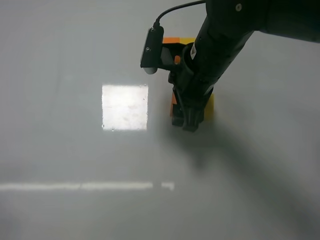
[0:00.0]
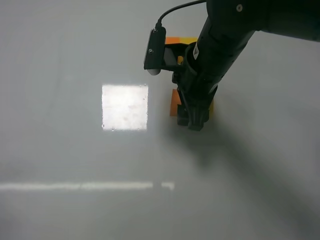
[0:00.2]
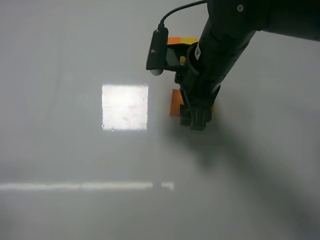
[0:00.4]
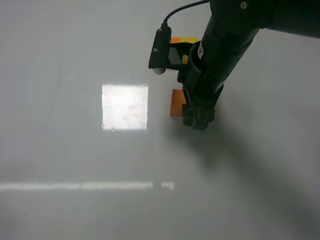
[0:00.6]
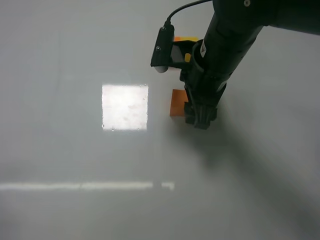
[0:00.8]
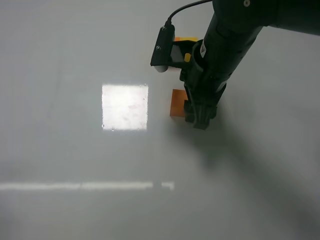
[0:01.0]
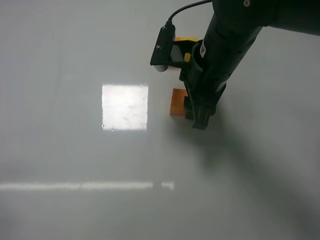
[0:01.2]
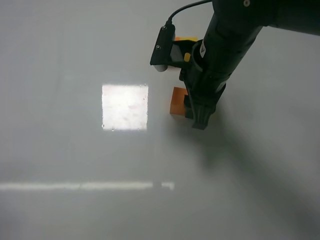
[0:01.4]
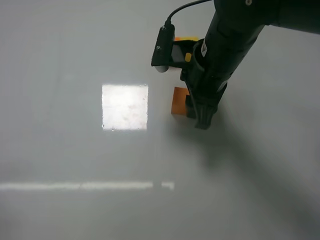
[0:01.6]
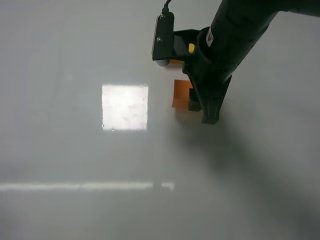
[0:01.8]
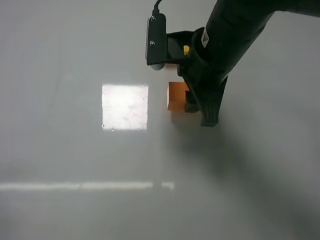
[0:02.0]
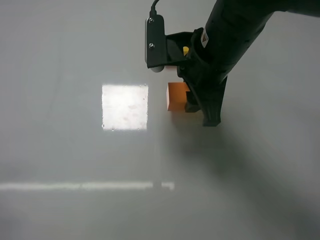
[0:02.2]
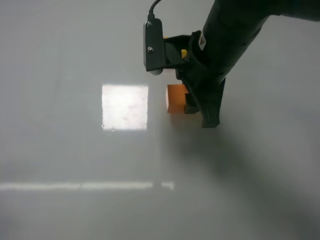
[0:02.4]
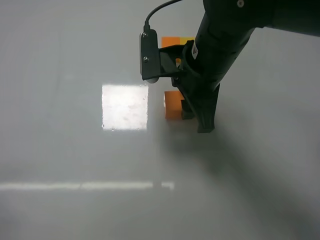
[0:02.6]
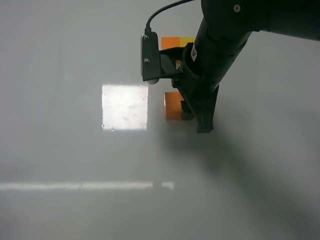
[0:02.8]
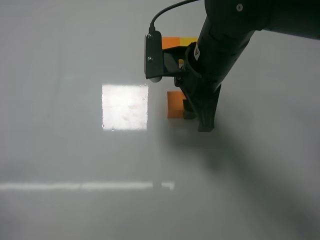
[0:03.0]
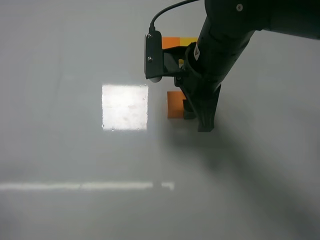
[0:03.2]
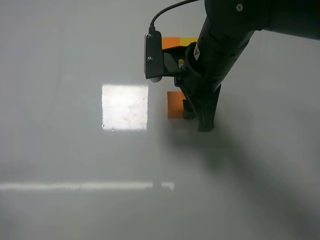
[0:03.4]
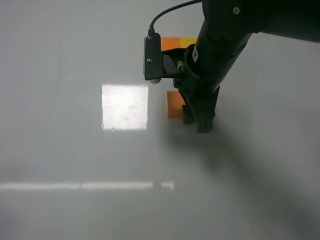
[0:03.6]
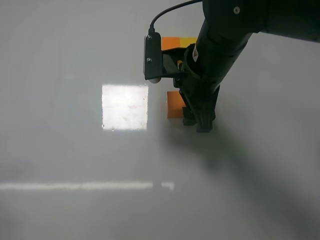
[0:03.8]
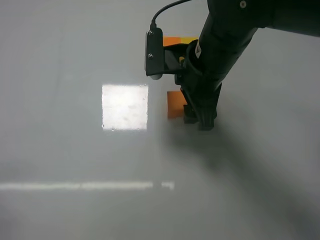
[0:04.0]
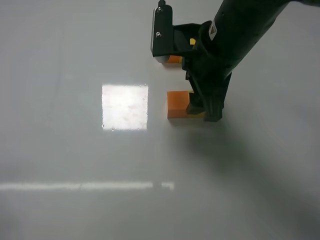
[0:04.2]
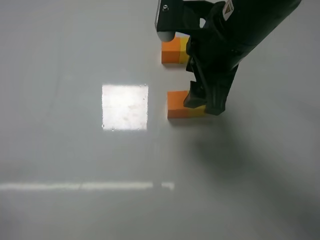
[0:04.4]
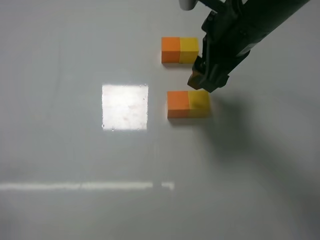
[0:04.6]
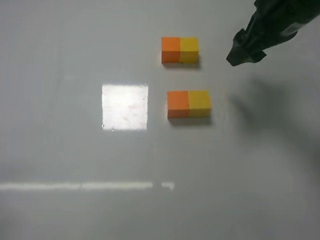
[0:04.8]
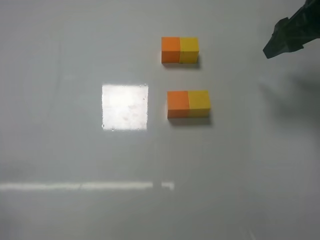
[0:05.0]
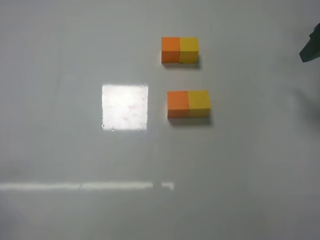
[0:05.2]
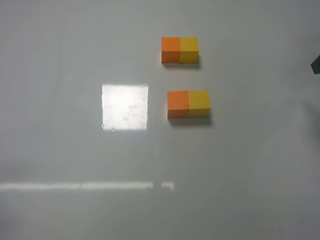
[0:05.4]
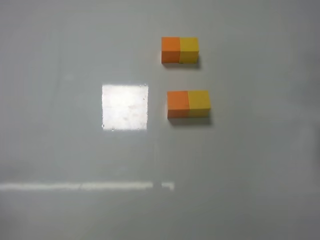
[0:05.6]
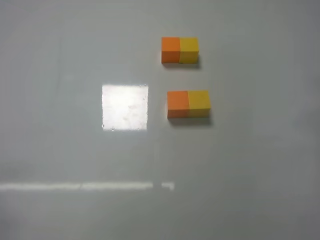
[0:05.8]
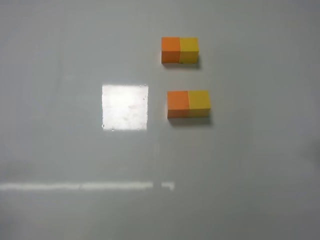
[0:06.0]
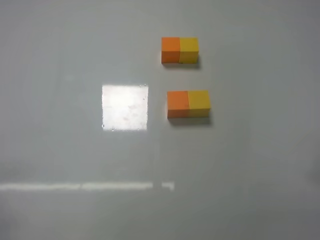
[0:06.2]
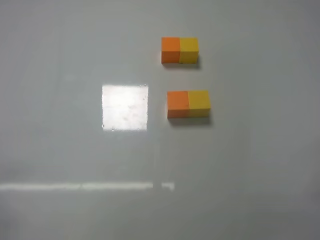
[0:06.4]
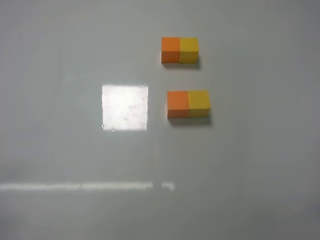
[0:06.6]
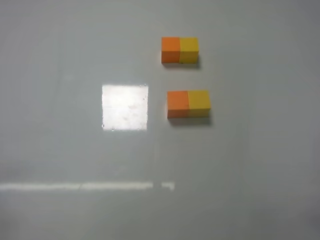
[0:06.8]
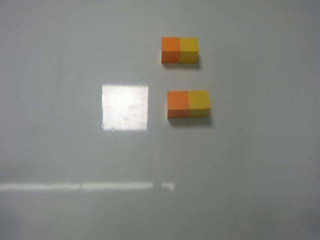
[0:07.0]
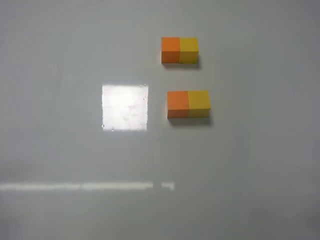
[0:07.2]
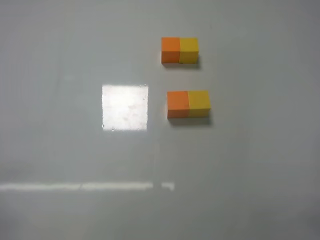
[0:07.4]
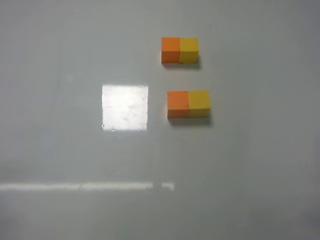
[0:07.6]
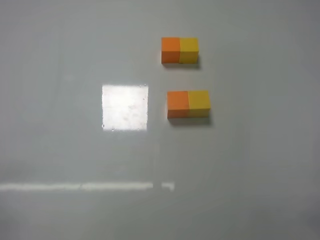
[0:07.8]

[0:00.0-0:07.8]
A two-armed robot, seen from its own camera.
Task of the whole recording: According to the building block template in front, assemble the scattered blocks together.
Step, 0:00.4 to 0:04.0: Put the yellow cube and orange cube in the center of the table with the right gripper.
0:00.0 to 0:01.6: The right gripper closes up.
0:01.6 to 0:03.2: The grippers move only a little.
0:03.2 to 0:04.6: The right gripper moves upward and to the right, about 10 cm, and opens up.
0:04.6 to 0:06.2: The right gripper shifts roughly 30 cm backward, to the right and downward.

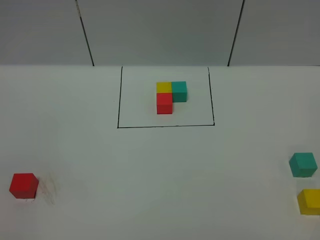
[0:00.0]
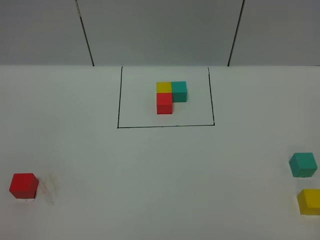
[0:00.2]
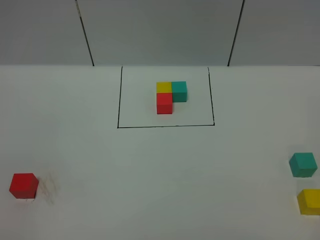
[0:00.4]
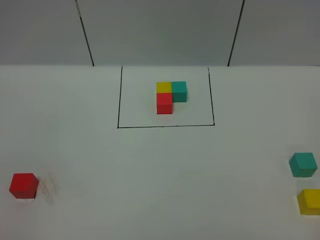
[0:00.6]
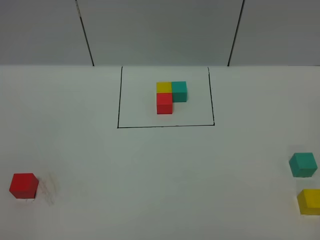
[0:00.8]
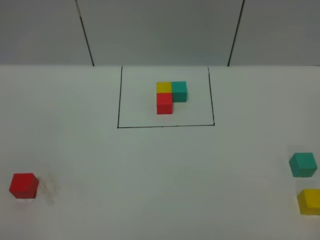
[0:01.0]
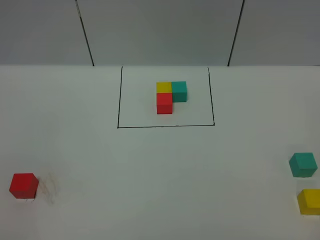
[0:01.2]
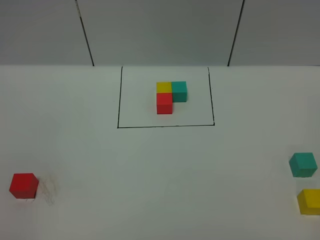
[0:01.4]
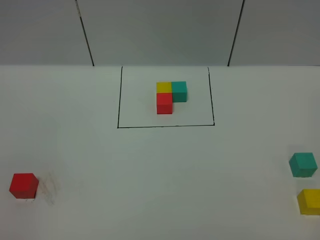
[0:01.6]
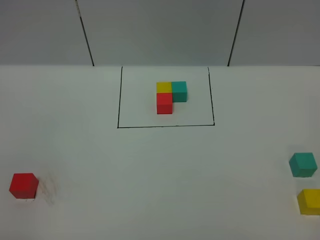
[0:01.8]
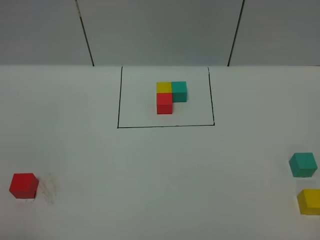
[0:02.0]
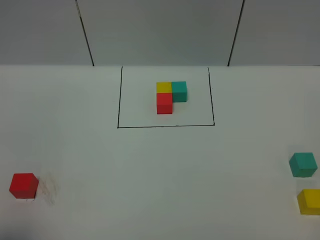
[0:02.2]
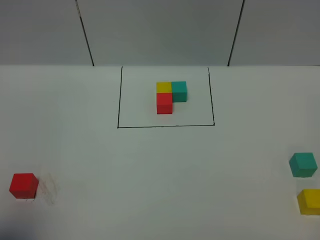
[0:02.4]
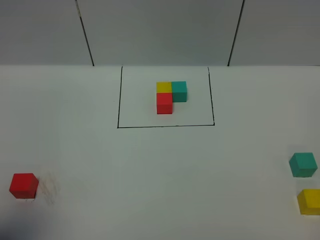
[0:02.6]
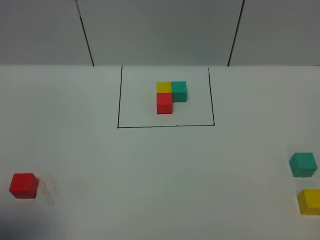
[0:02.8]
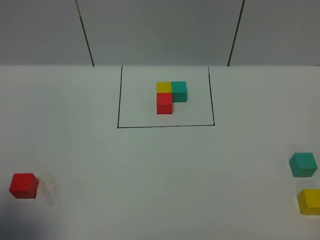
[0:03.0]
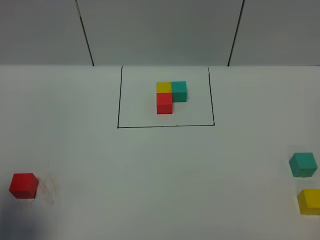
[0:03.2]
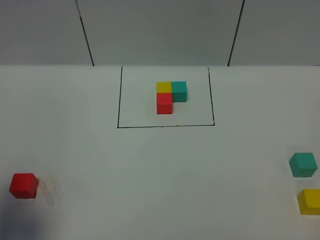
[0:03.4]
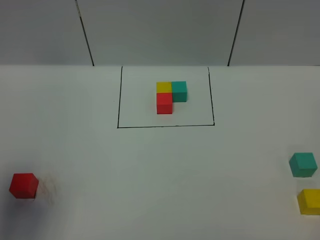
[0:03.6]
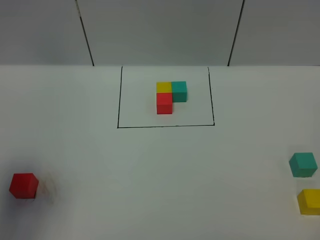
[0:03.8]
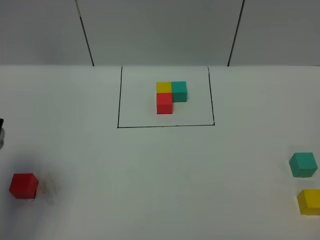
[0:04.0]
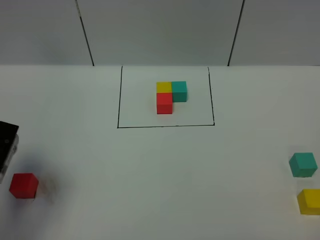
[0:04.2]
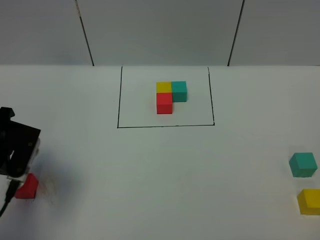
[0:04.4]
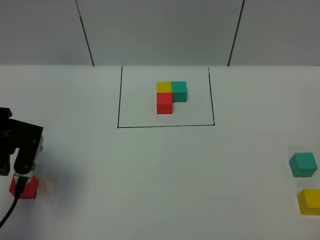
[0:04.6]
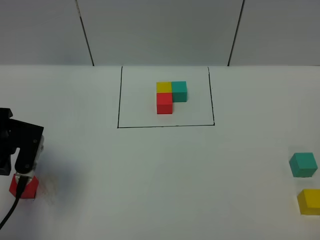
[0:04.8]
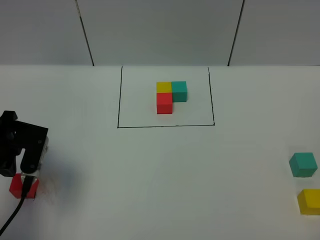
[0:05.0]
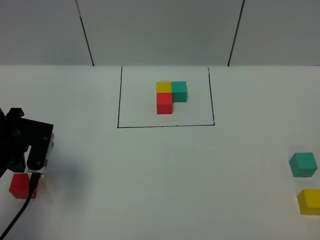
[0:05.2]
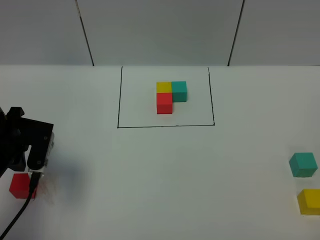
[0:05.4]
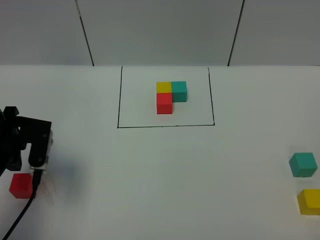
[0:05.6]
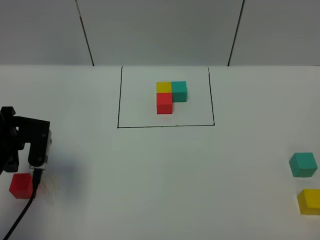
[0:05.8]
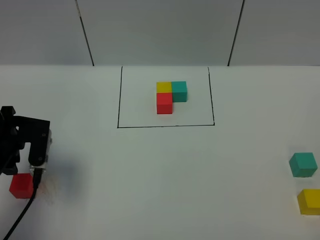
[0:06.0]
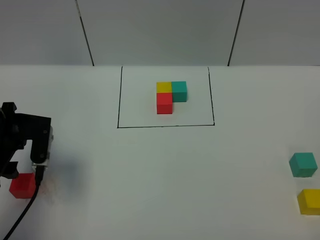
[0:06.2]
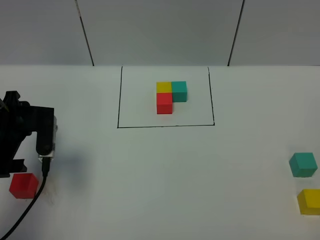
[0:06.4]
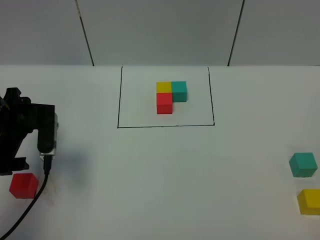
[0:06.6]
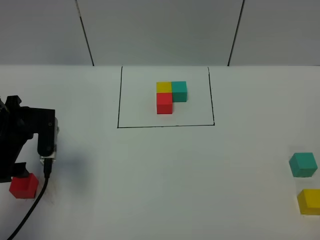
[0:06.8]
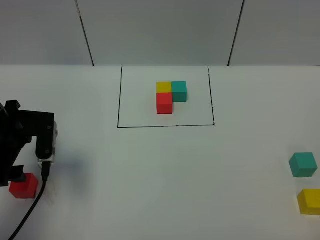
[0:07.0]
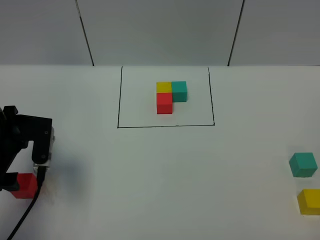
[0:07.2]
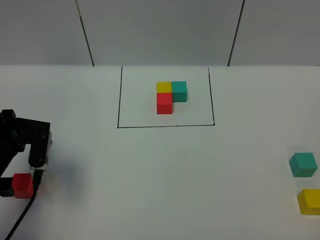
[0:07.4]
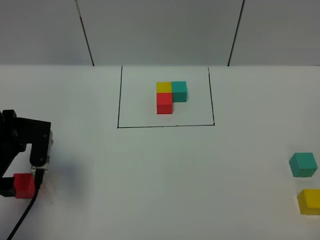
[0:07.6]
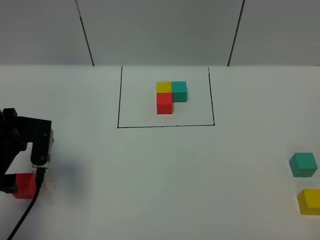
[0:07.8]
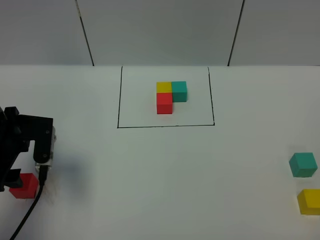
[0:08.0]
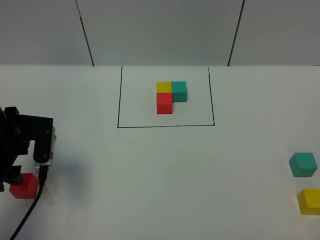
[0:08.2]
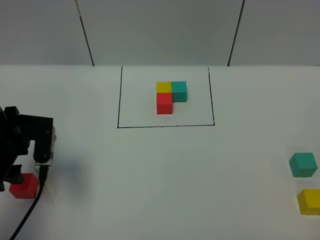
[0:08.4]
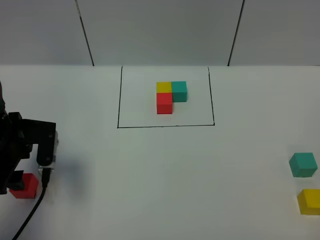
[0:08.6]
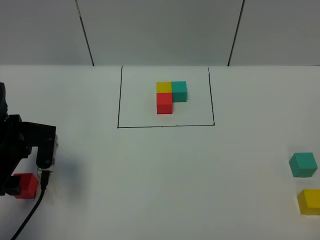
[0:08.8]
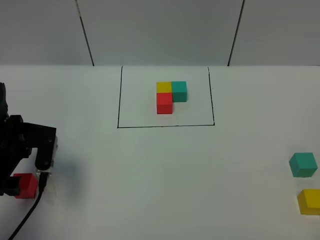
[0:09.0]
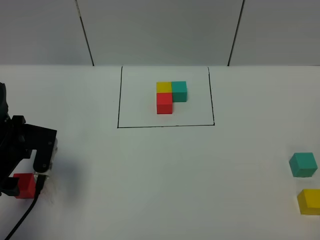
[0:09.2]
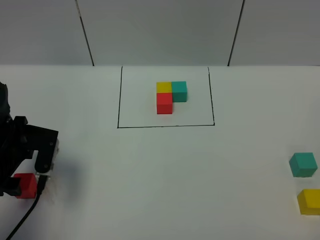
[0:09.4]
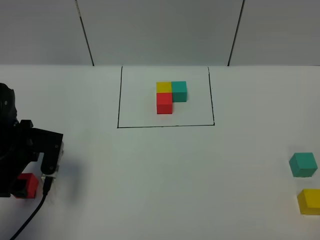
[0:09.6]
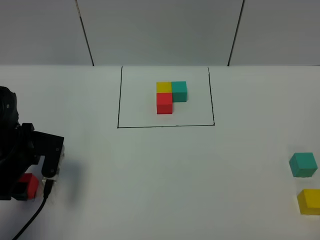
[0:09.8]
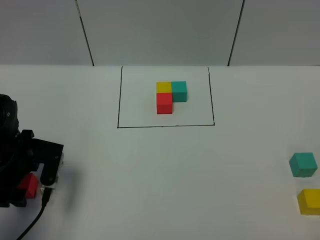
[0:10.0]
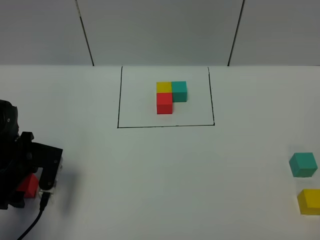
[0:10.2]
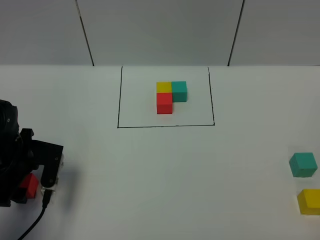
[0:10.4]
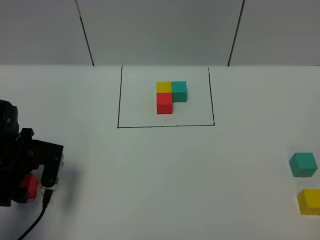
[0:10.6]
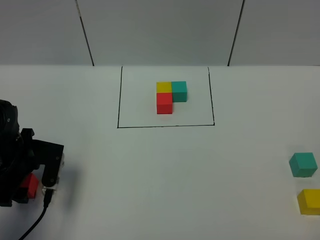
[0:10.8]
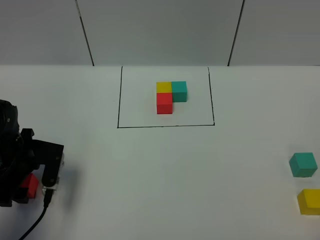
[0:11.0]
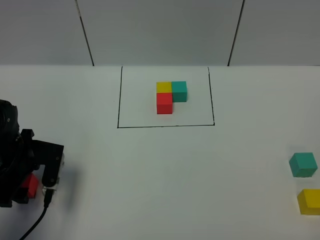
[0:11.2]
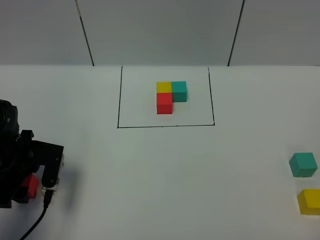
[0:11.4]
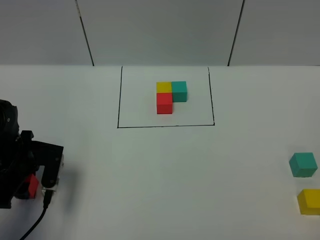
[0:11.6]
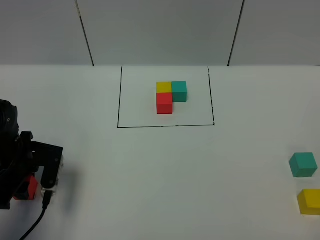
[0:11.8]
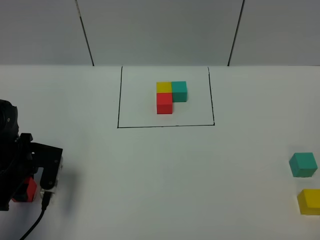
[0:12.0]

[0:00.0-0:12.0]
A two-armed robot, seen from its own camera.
Task of the whole recording: According to the building block template in front, assemble the scattered blocks together.
0:00.0 to 0:01.6: Neither gripper changes place.
0:01.6 to 0:03.0: The left gripper is displaced forward by some 15 cm.
0:03.0 to 0:04.4: The left gripper moves forward and downward, approximately 15 cm.
0:04.4 to 0:06.0: The grippers stay close to where they were, moving slightly.
0:06.0 to 0:07.6: The left gripper opens its fingers.
0:07.6 to 0:09.0: The grippers stay close to where they were, moving slightly.
0:09.0 to 0:10.4: There are only small adjustments of the grippers.
0:10.4 to 0:12.0: Both grippers stay about where they are.

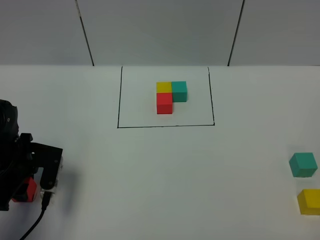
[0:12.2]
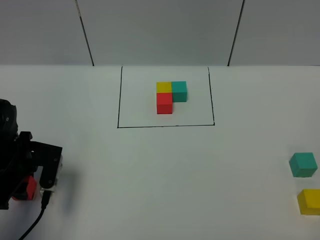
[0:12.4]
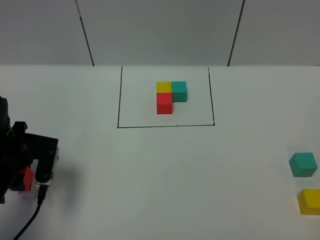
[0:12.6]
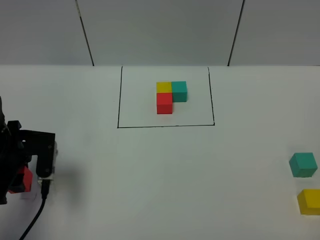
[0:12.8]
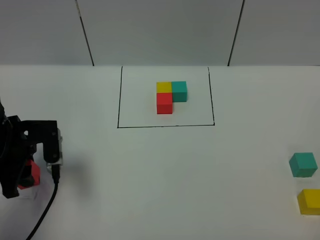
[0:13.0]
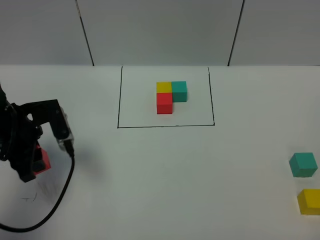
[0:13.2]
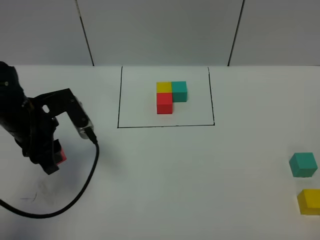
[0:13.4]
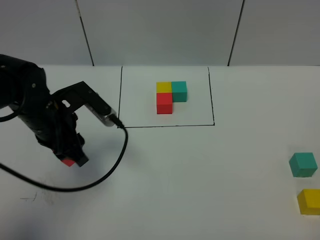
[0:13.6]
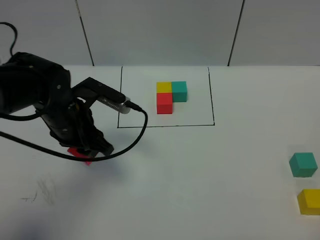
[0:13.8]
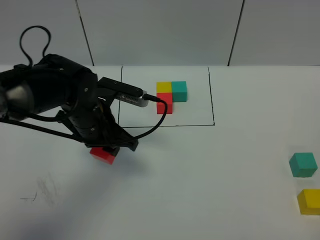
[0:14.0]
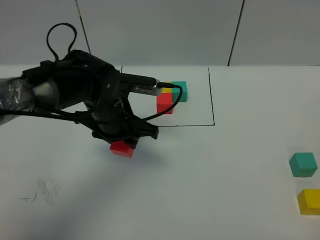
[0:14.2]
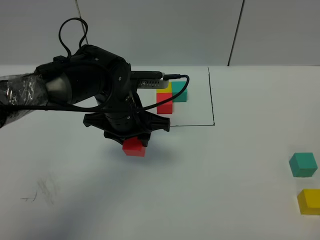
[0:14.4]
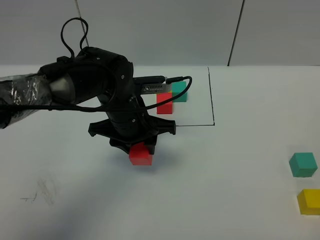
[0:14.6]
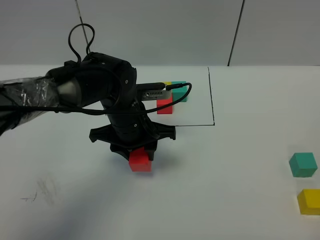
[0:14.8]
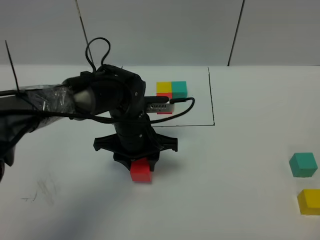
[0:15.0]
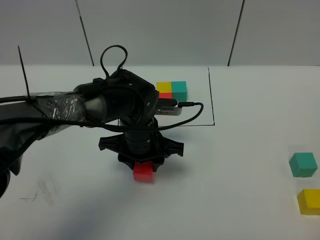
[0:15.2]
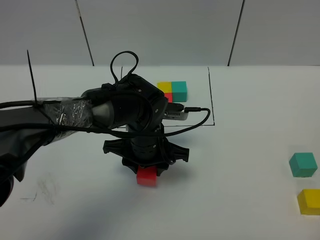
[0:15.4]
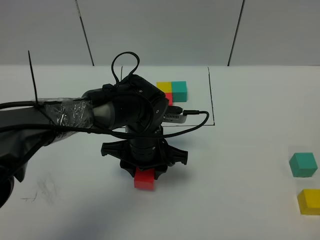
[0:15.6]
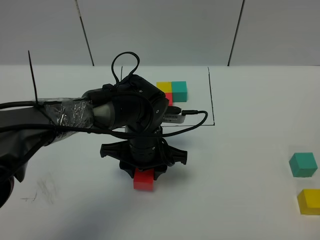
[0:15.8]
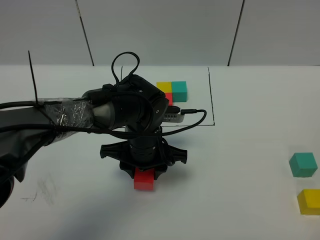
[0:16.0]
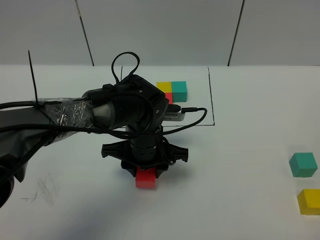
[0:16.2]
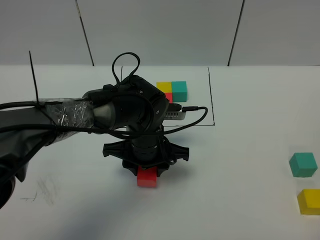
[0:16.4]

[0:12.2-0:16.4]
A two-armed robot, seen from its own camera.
Task of the whole recording: According to the building block template in front, assemble the scattered blocks together.
0:12.2 to 0:13.6: The left gripper shifts approximately 10 cm to the right and upward.
0:13.6 to 0:15.0: The left gripper heads to the right and downward, covering about 15 cm.
0:15.0 to 0:16.4: The grippers stay close to where they were, moving slightly.
